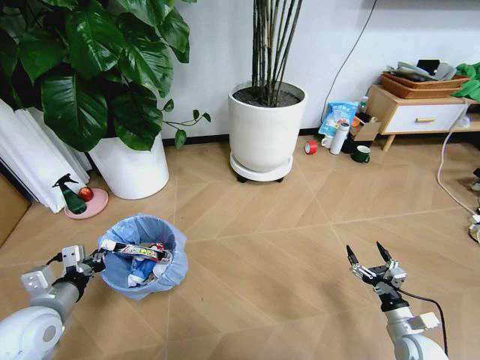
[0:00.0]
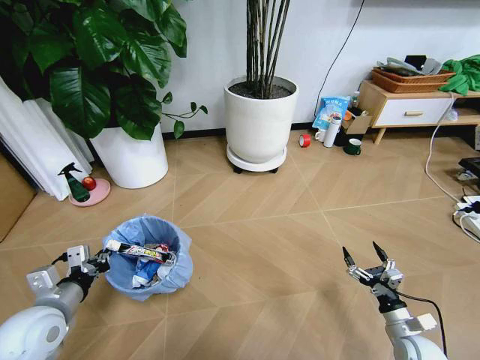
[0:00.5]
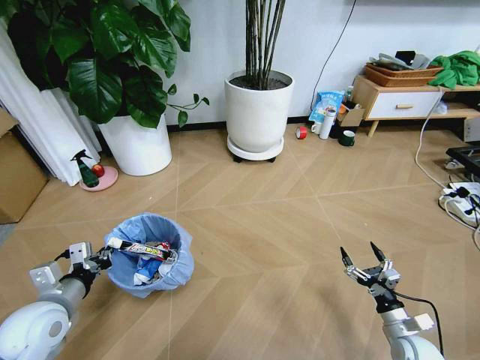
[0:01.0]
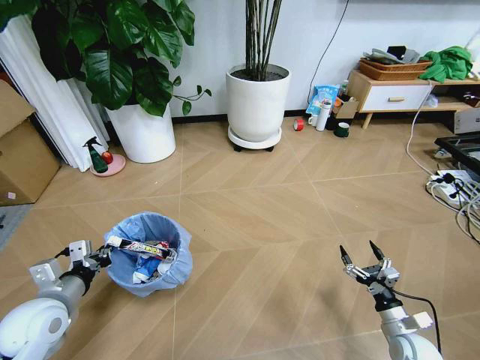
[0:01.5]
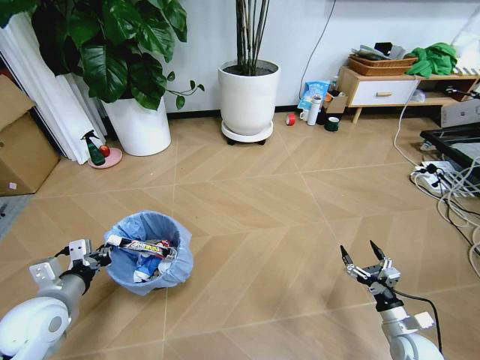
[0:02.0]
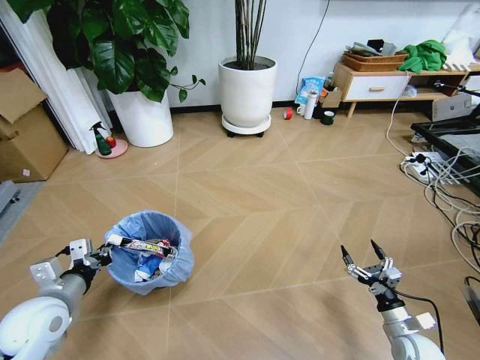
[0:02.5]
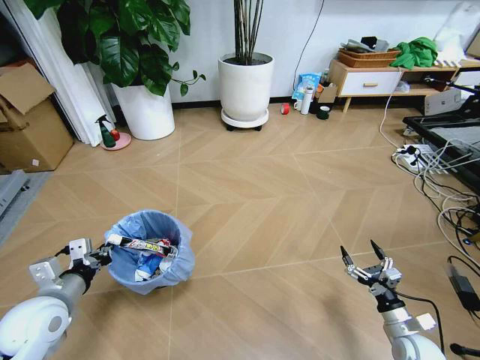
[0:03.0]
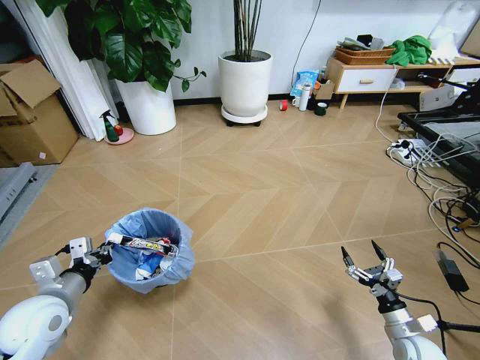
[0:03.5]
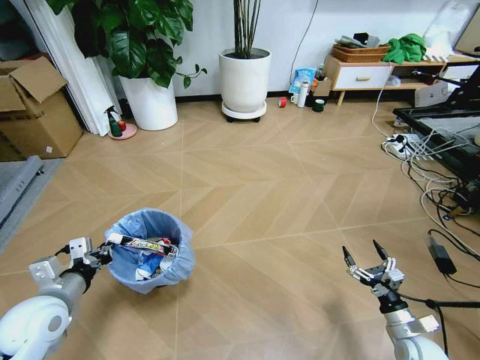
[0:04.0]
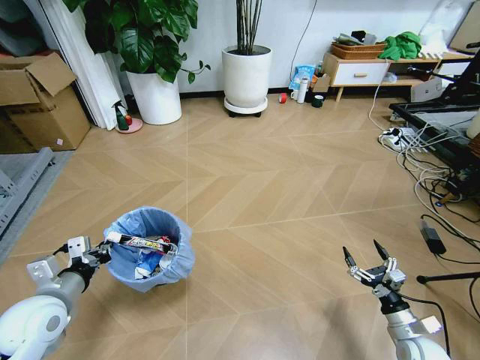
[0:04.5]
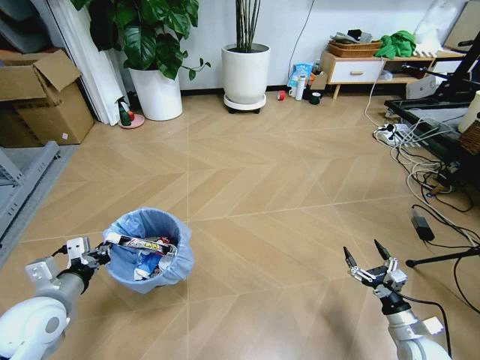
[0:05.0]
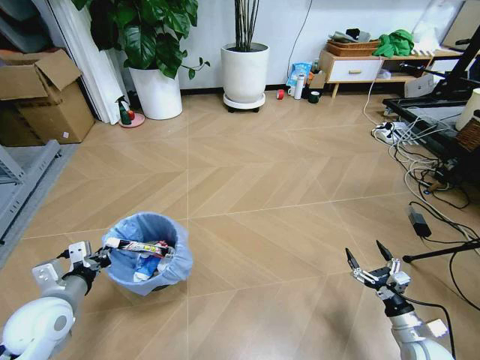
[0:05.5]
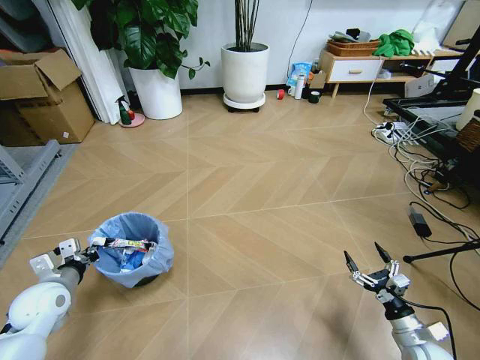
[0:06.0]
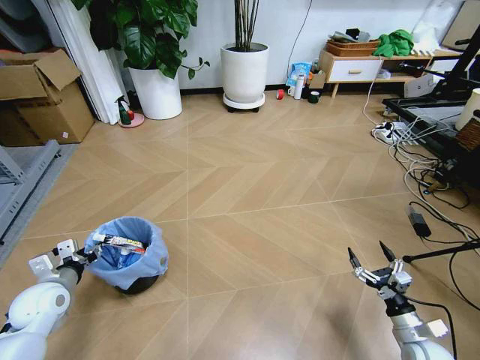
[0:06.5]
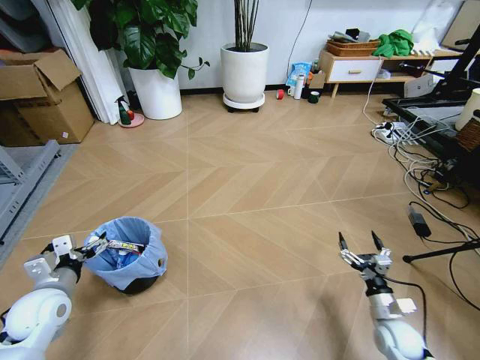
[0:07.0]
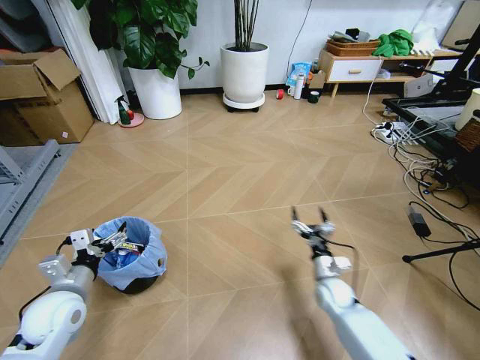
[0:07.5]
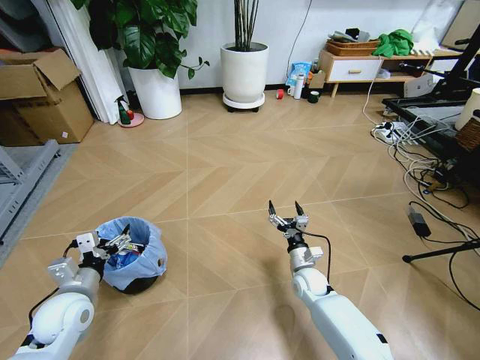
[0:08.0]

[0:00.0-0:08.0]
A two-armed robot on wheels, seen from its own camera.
Task of the whole recording: Pick up the trash bin and place the garbage on the floor into it.
0:04.0 to 0:06.0: The left gripper is displaced downward, to the left and forward by approximately 10 cm.
0:06.0 to 0:08.0: The left gripper moves to the right, approximately 5 cm, and opens up; the right gripper heads to the left and forward, covering about 30 cm.

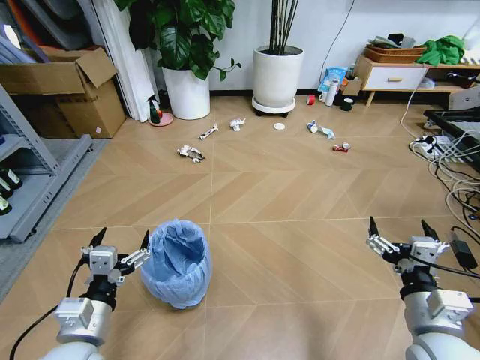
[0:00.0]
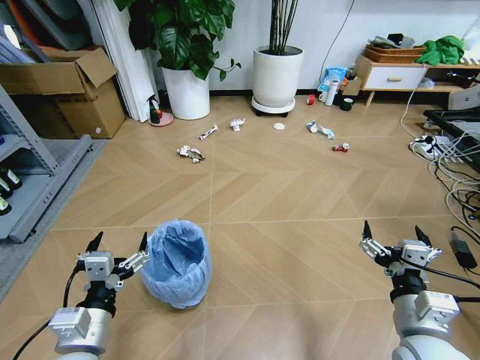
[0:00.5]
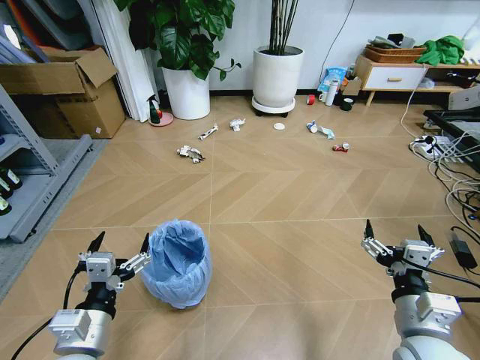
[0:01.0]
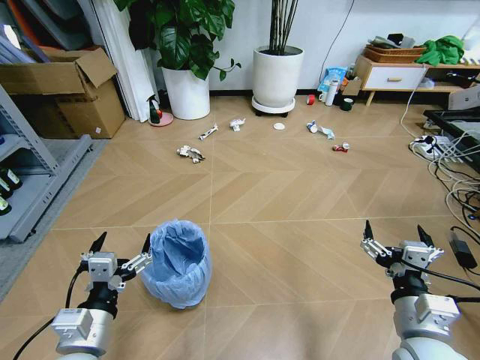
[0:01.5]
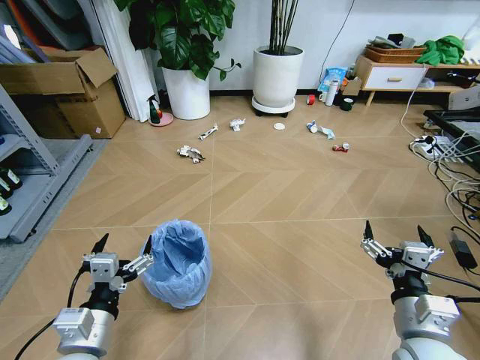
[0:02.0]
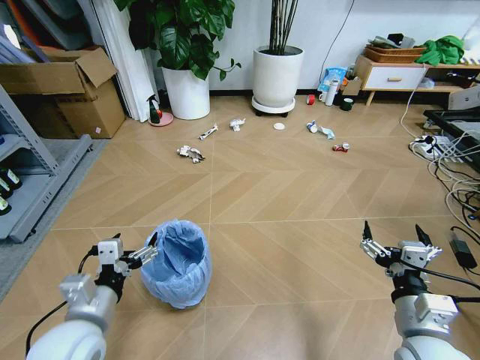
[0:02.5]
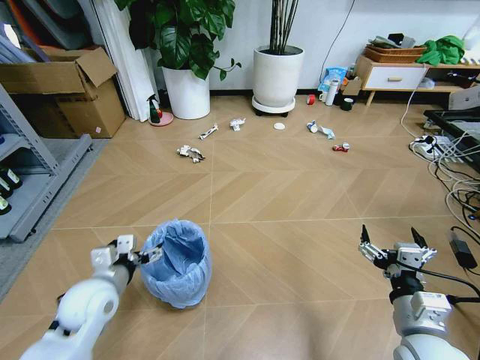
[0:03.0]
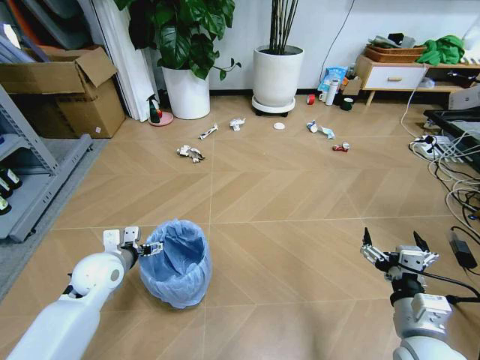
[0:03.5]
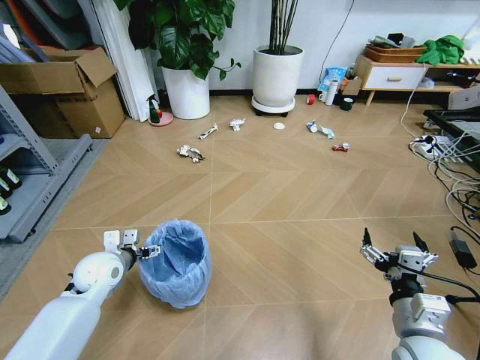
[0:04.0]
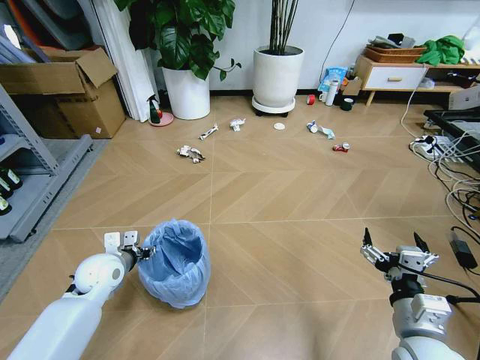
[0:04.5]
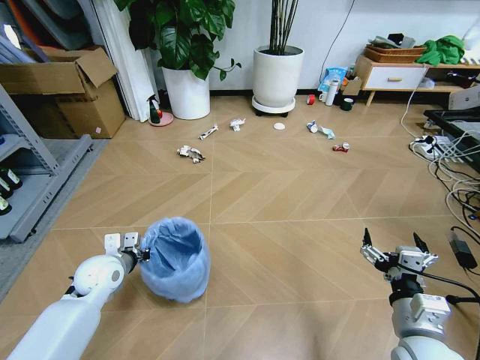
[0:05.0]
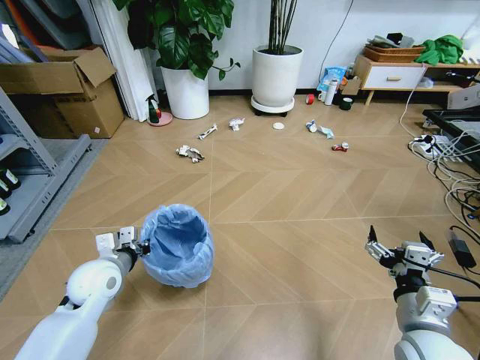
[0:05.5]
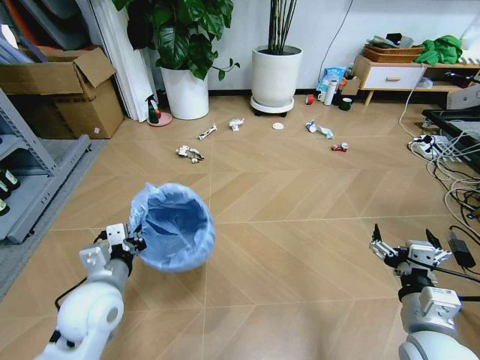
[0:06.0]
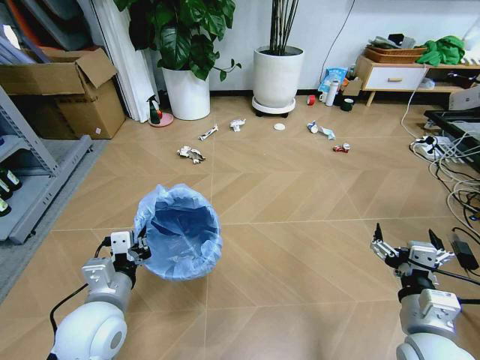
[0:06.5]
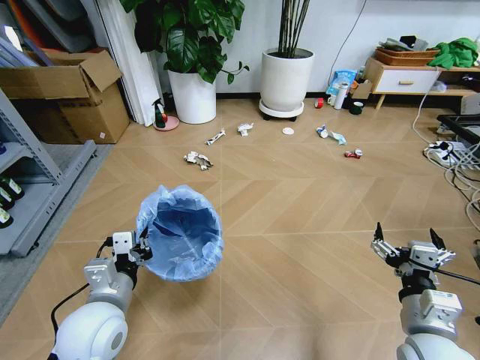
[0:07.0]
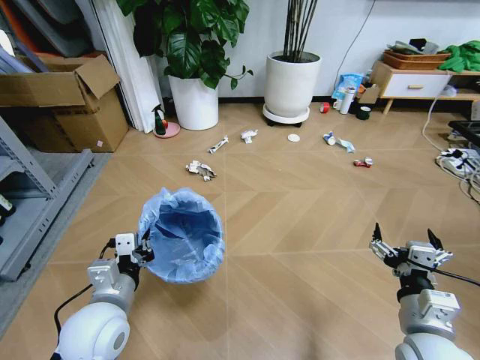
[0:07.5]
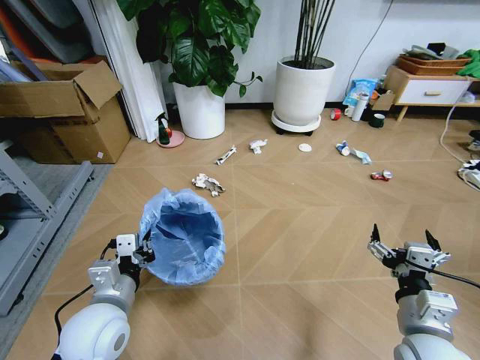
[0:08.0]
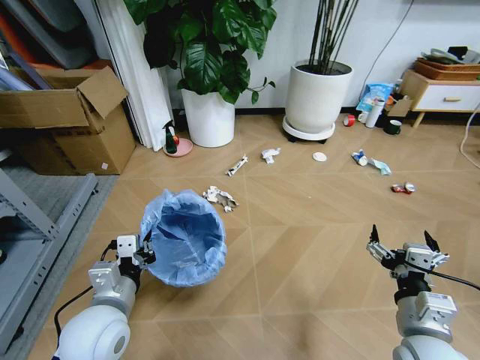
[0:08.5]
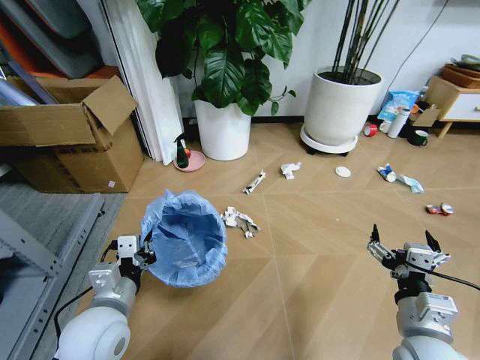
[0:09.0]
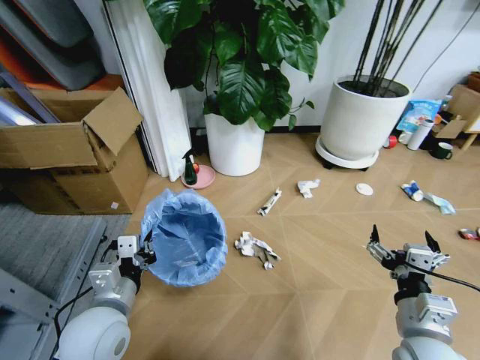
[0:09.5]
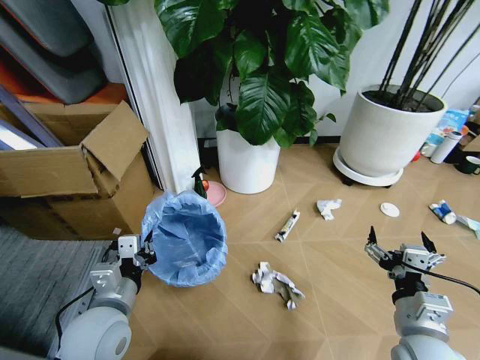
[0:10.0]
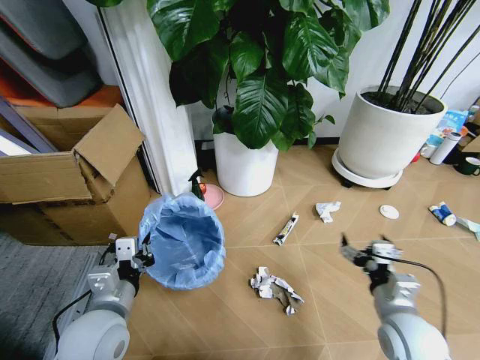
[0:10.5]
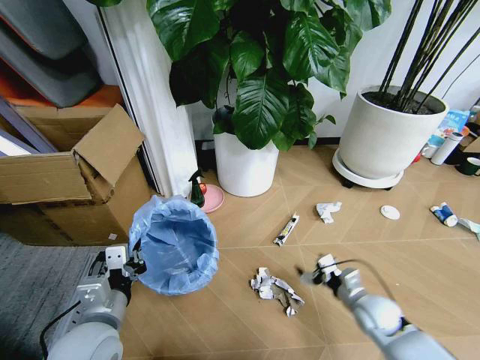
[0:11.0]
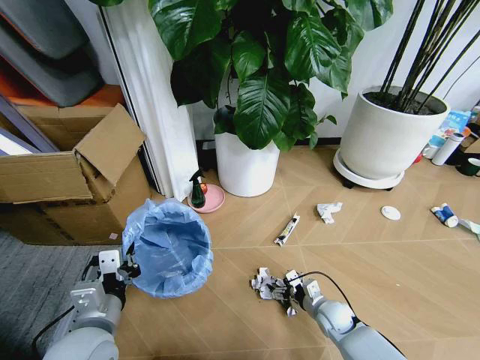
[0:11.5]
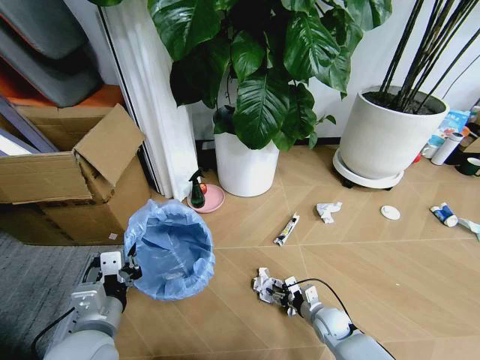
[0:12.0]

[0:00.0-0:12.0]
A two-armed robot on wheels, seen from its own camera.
Task of the whole recording: Pick up the trash bin and place the garbage on the floor into it.
0:02.0 to 0:04.0: The left gripper heads forward, covering roughly 20 cm.
0:04.0 to 0:06.0: The left gripper shifts roughly 15 cm backward, upward and to the right, and closes up.
0:10.0 to 0:12.0: The right gripper heads downward and forward, covering some 30 cm.

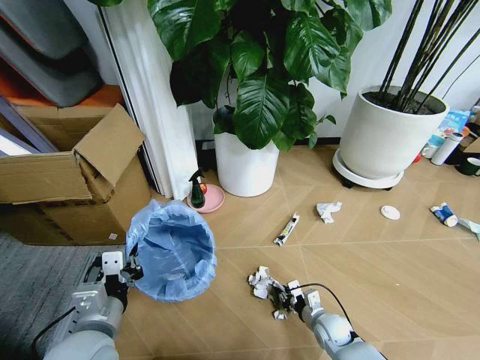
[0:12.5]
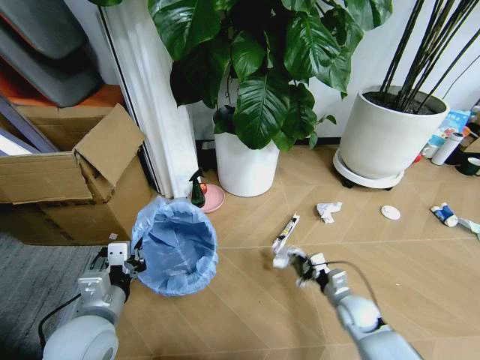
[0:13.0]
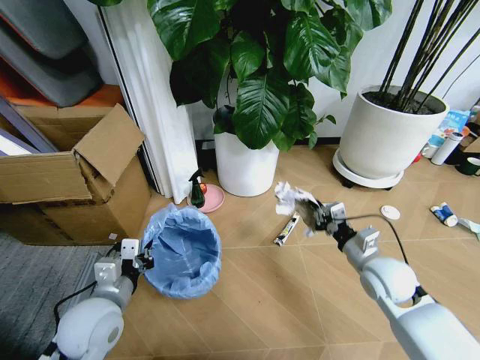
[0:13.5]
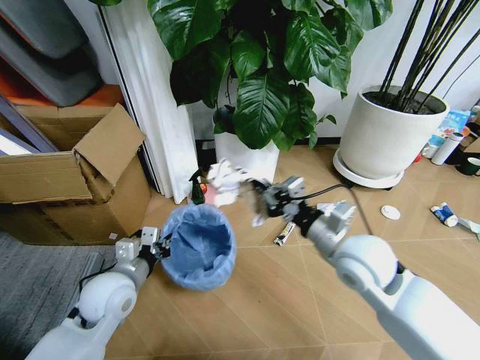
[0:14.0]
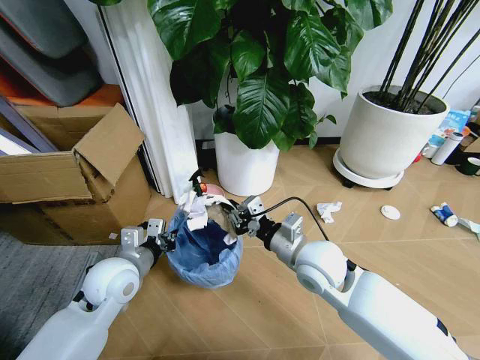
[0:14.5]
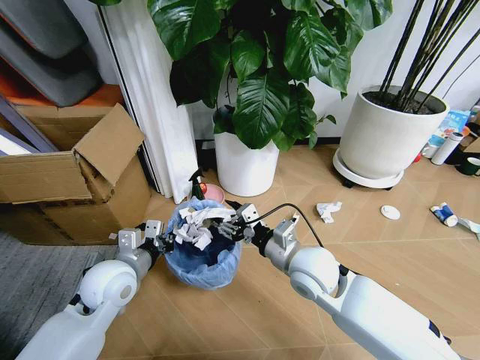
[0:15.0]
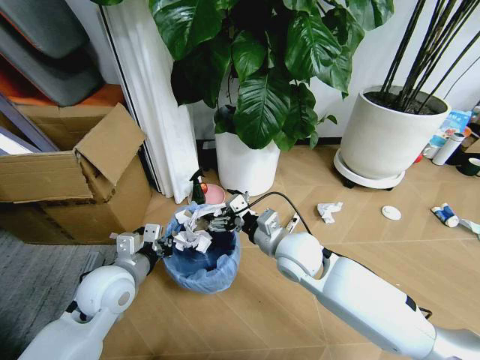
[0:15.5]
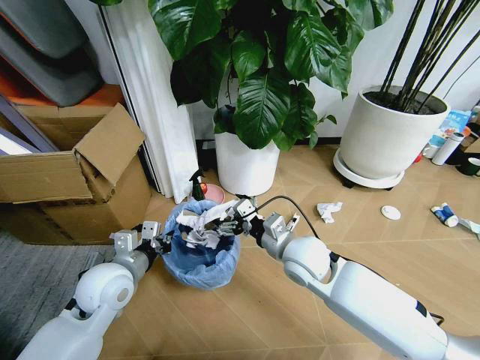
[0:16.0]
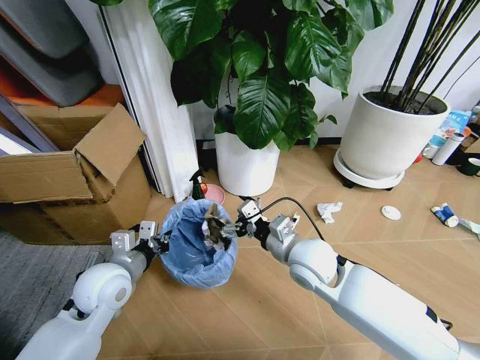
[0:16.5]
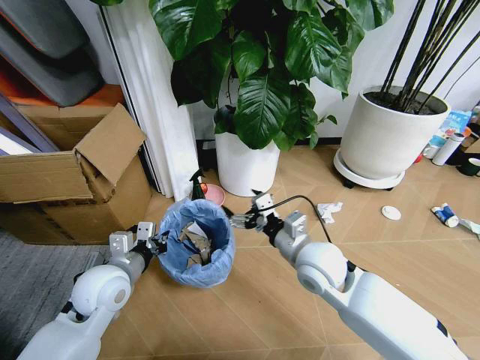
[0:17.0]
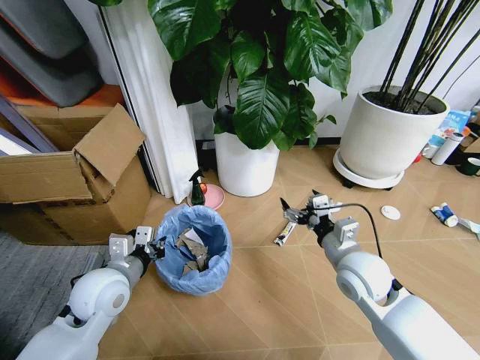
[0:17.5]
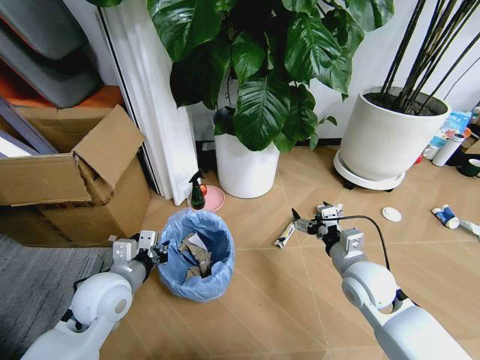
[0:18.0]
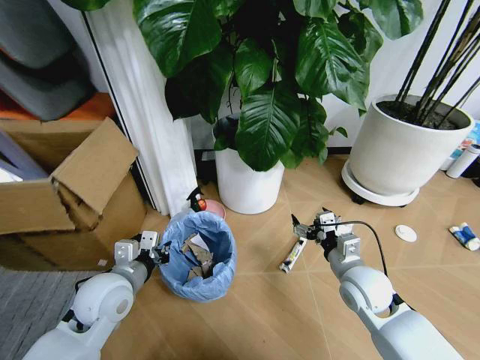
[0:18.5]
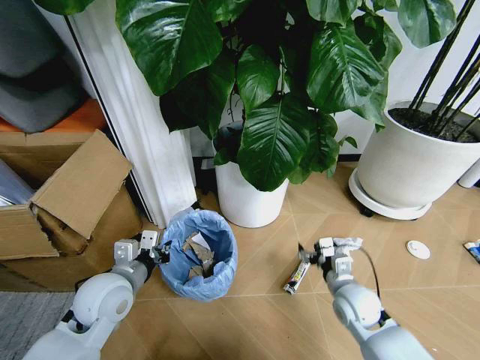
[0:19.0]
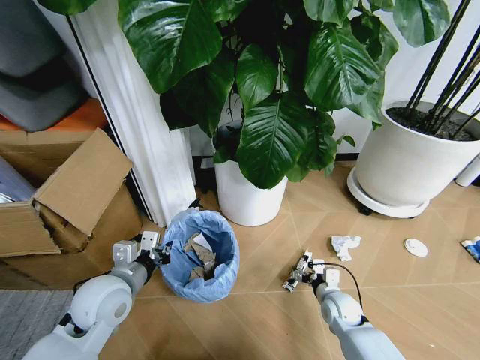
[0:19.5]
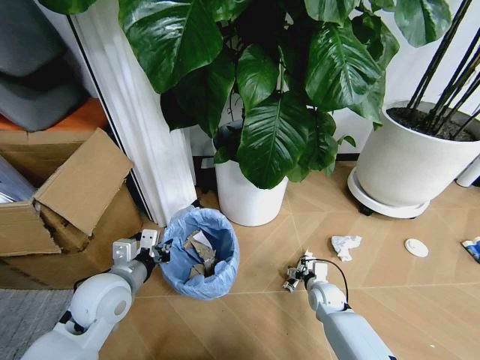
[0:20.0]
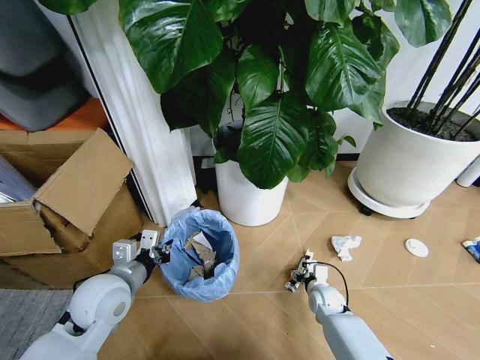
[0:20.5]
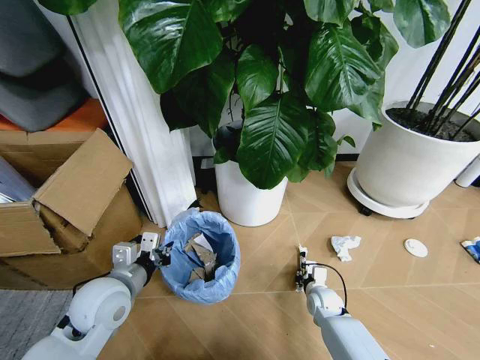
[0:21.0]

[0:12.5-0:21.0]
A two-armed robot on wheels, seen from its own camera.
Task of the whole recording: Pick up the trash bin and place the garbage on the floor into it.
0:12.5 to 0:14.5: The left gripper heads forward, covering approximately 15 cm. The right gripper shifts approximately 30 cm upward.
0:14.5 to 0:16.5: The right gripper opens.
0:16.5 to 0:19.0: The right gripper goes about 20 cm downward and to the right.
0:19.0 to 0:21.0: The right gripper goes some 15 cm downward, and closes its fingers.
